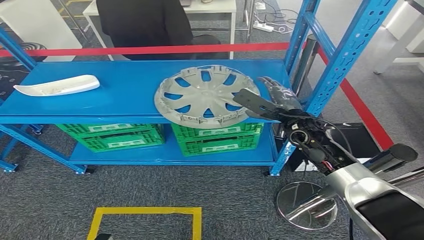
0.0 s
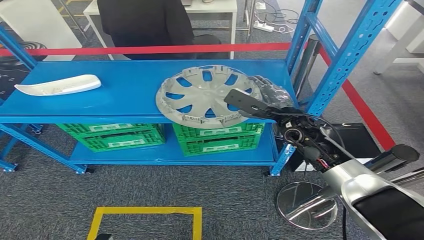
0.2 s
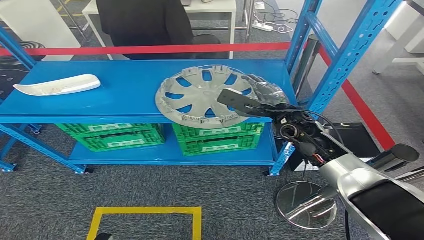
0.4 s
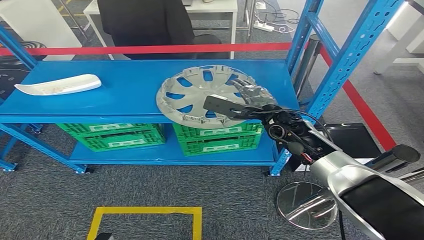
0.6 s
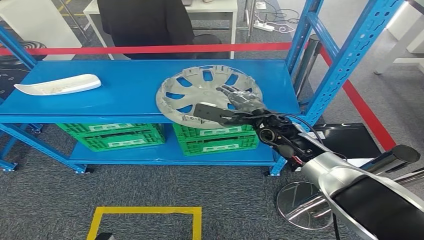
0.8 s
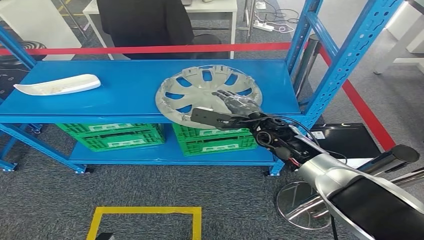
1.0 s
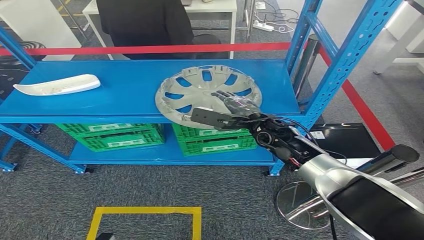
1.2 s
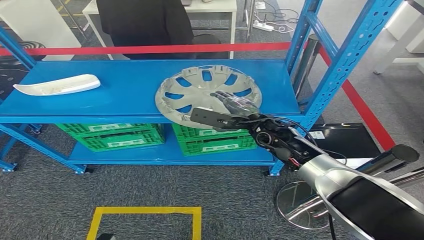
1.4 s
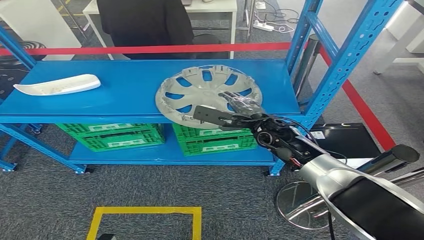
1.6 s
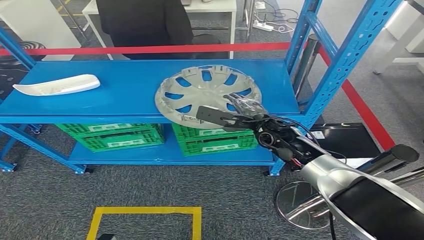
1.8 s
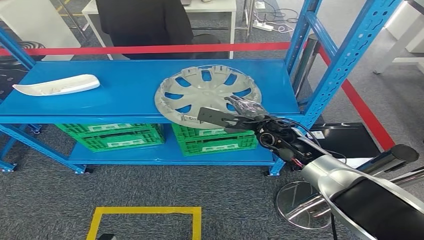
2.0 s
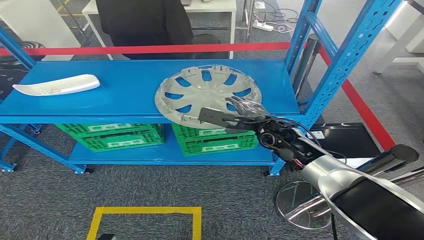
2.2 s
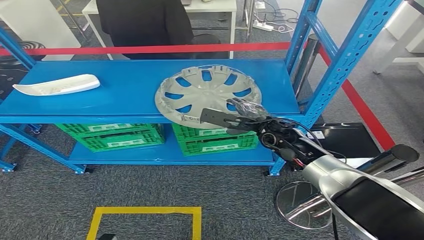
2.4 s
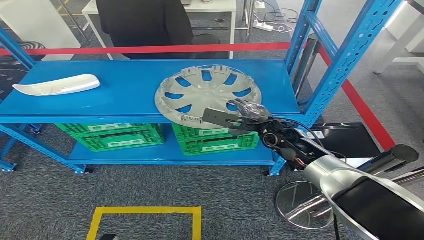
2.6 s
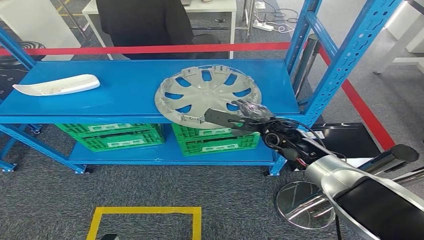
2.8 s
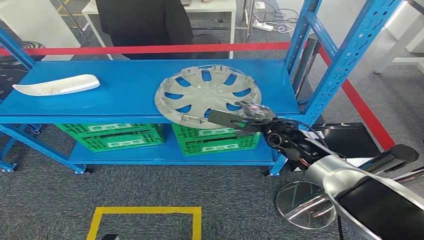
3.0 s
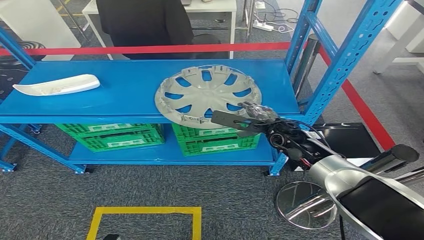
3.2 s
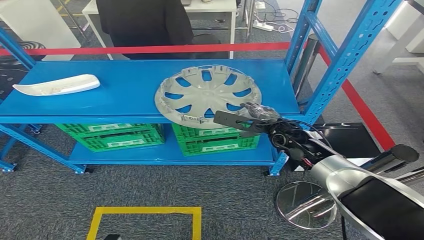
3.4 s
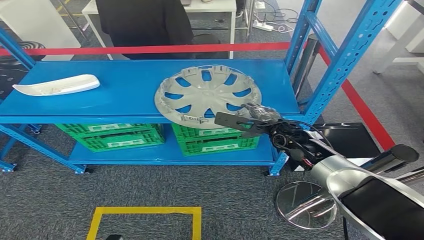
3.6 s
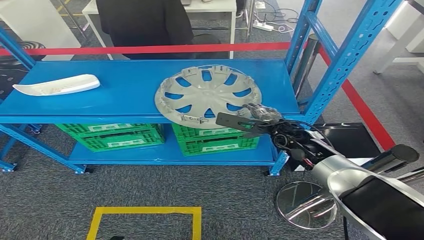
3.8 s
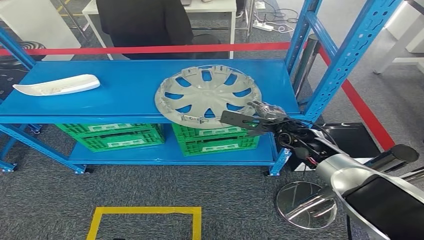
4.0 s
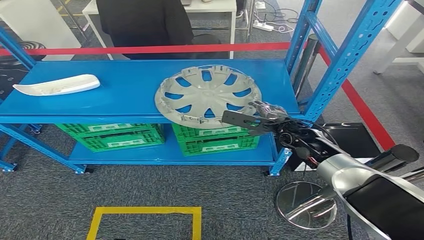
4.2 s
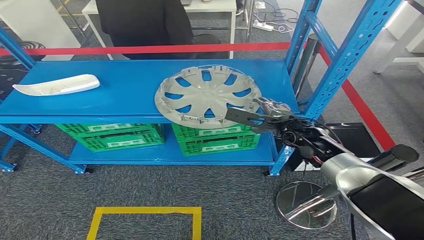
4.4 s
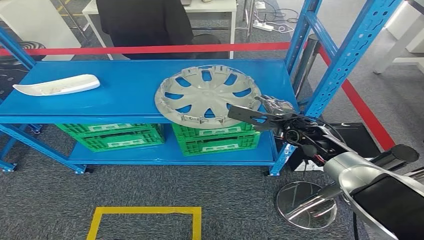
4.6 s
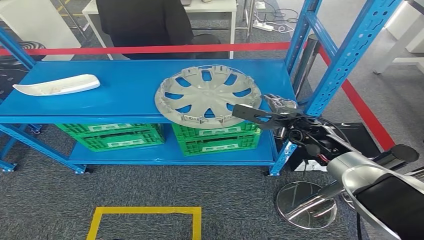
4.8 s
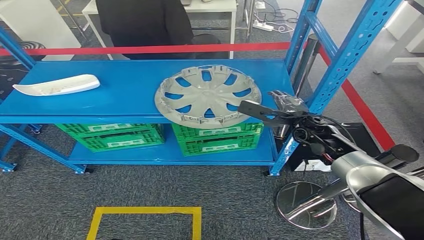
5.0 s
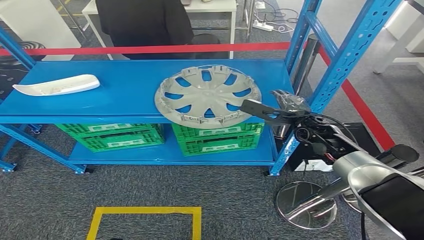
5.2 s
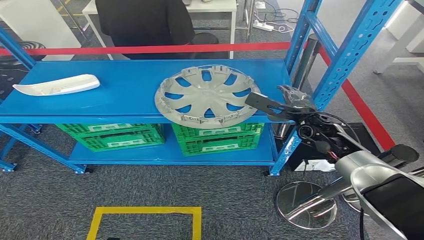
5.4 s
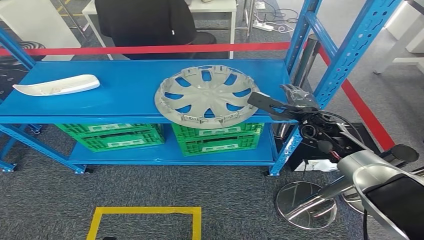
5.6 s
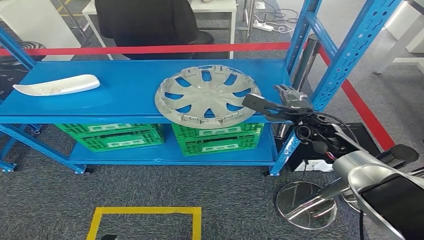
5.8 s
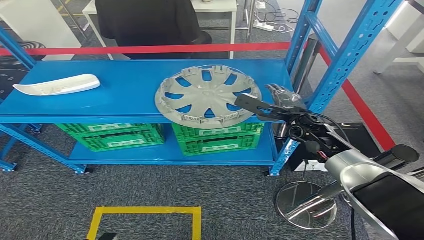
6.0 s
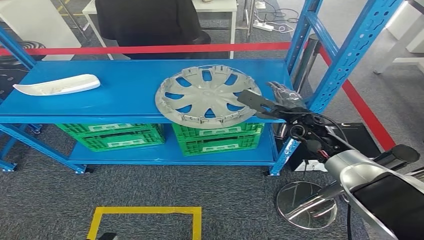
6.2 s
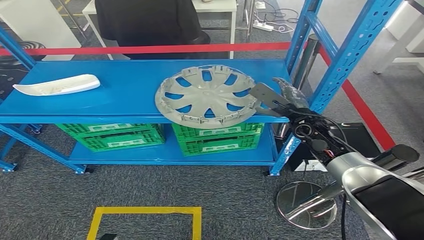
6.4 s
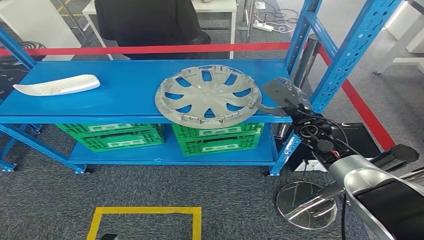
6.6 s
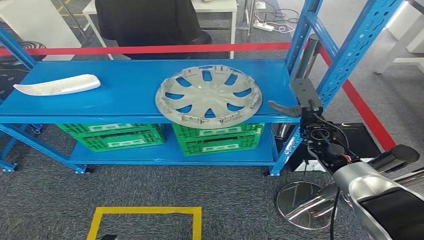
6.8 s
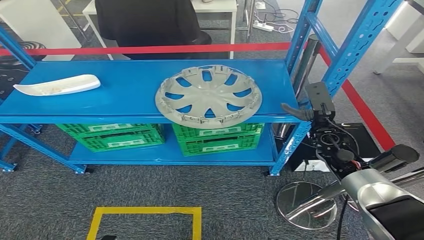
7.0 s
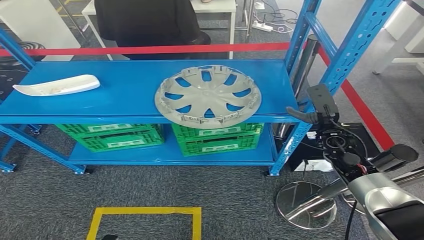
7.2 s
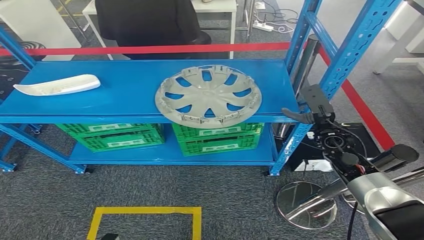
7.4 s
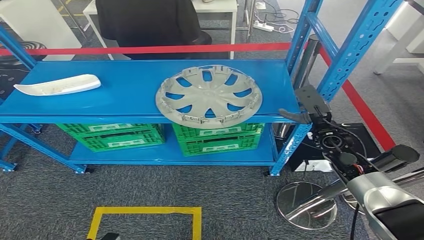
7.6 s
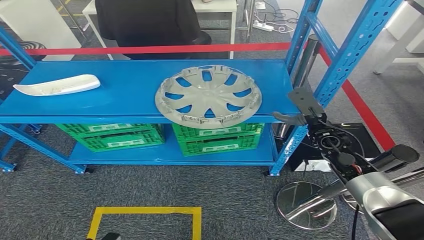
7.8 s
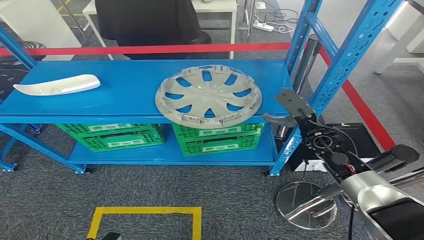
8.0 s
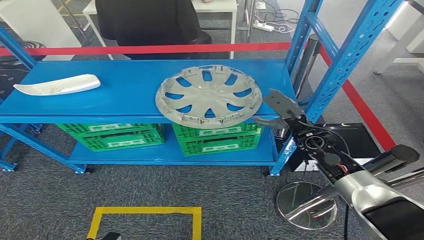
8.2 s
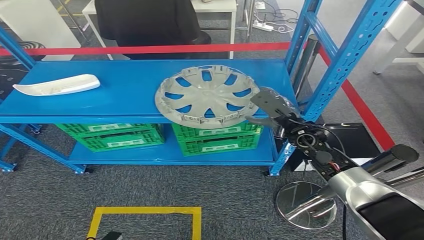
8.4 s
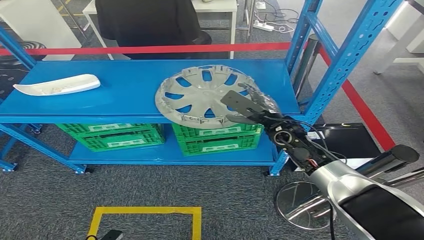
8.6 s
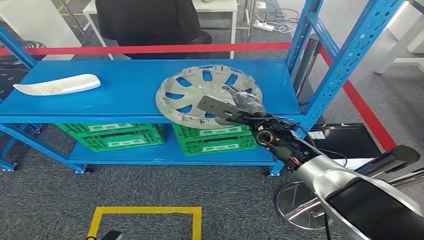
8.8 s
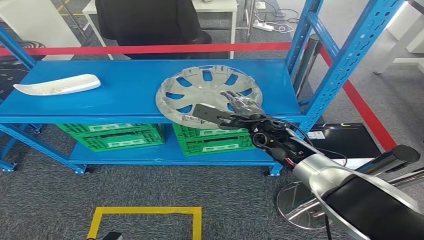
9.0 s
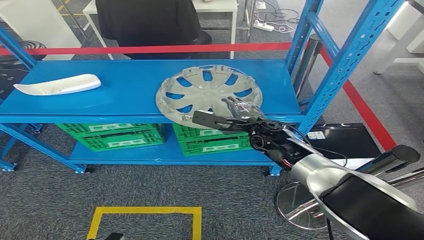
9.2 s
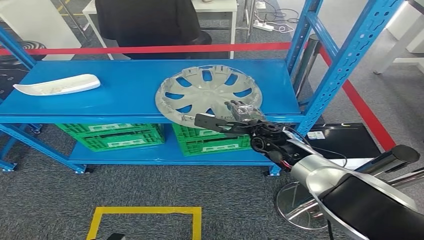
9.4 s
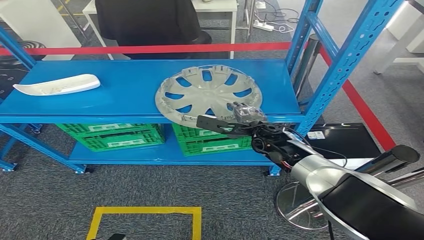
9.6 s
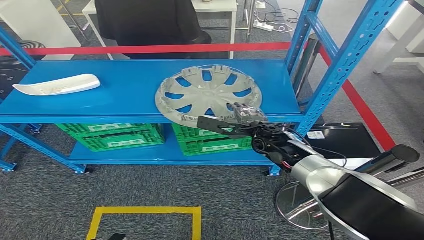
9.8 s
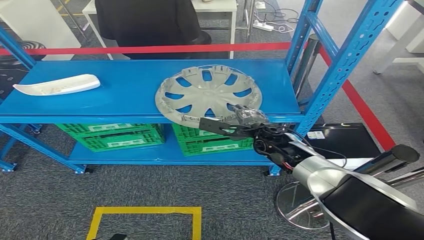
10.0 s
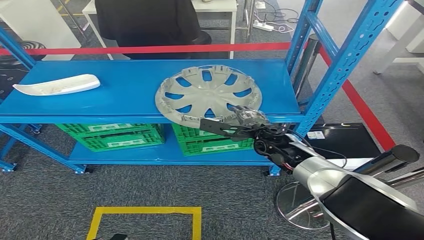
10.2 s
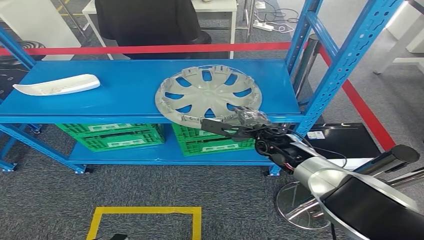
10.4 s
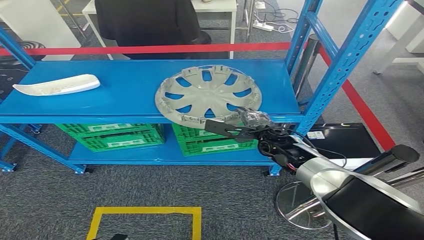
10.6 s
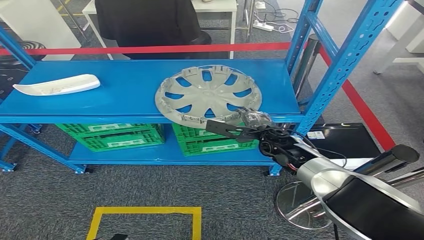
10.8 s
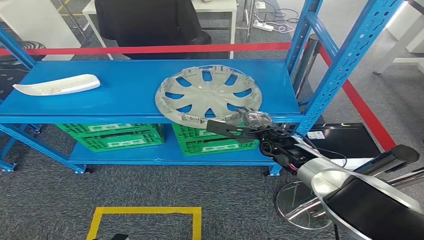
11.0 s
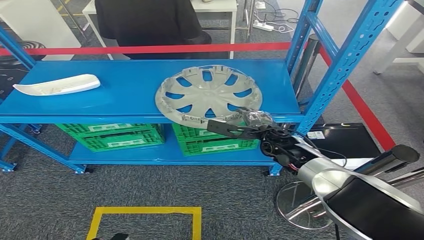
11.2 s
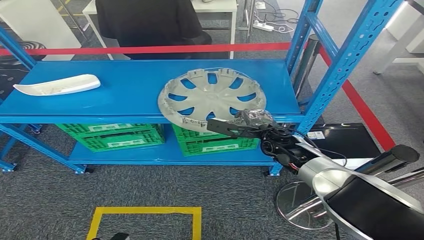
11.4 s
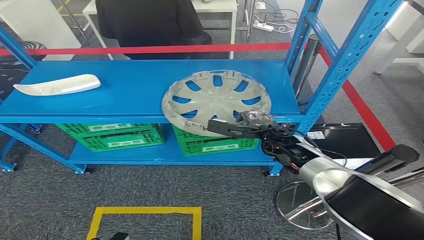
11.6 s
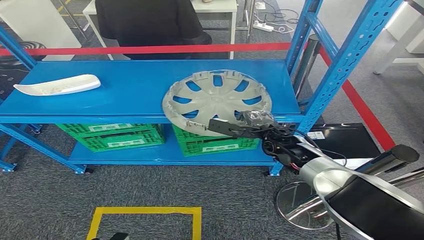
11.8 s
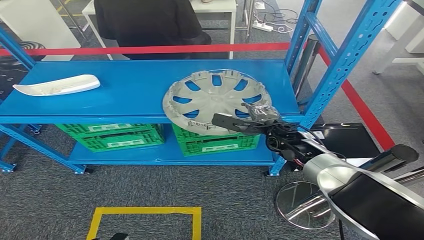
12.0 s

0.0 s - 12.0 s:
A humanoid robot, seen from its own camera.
0.0 s - 1.6 s: The right hand moves to the left, roughly 5 cm.
1.6 s - 3.0 s: There are only small adjustments of the hands.
3.0 s - 4.4 s: The hands move only a little.
4.4 s - 6.0 s: The hands move only a little.
6.0 s - 7.6 s: The right hand moves to the right, about 5 cm.
7.6 s - 9.0 s: The right hand travels to the left by some 15 cm.
9.0 s - 12.0 s: The hands stay close to where they were, moving slightly.

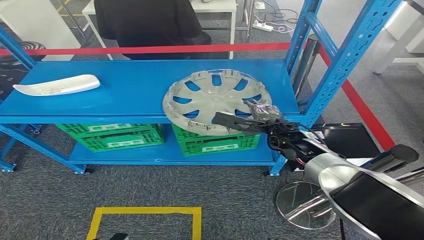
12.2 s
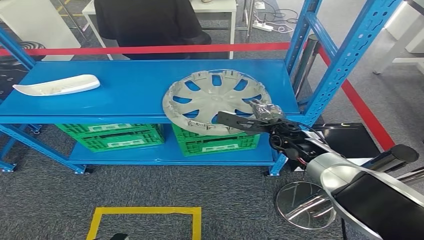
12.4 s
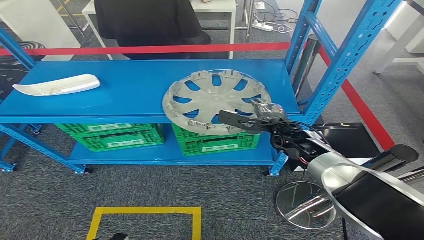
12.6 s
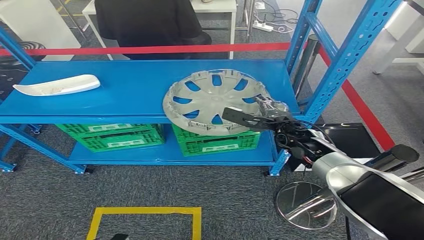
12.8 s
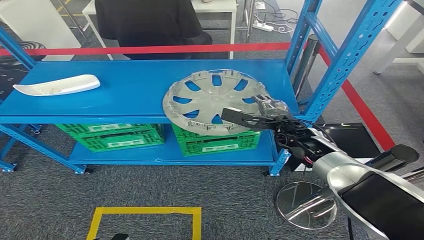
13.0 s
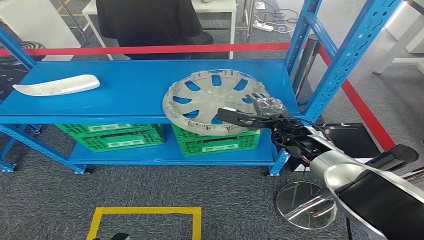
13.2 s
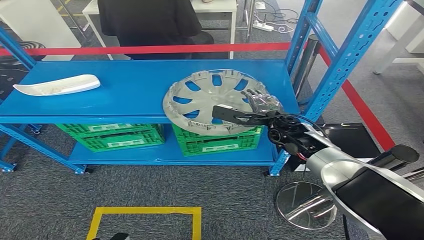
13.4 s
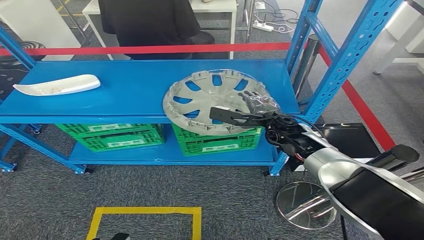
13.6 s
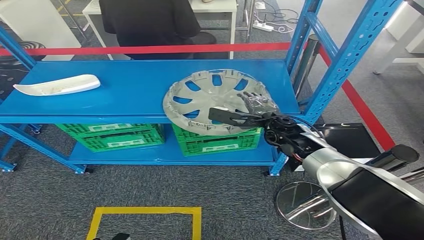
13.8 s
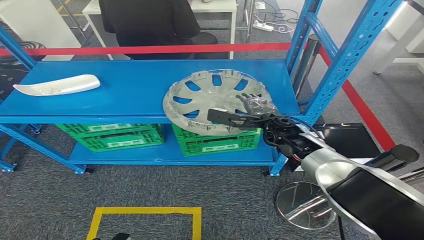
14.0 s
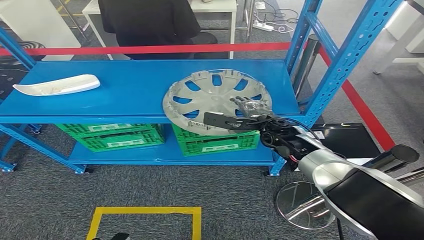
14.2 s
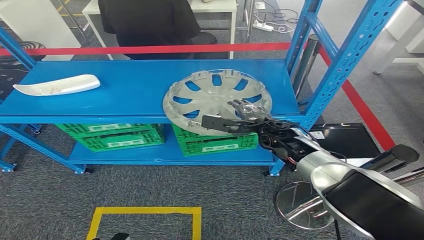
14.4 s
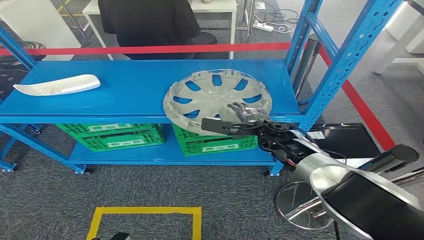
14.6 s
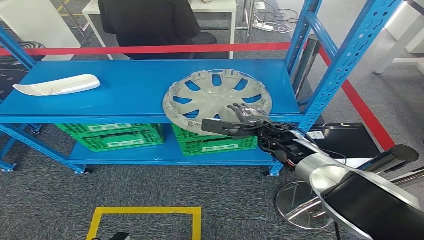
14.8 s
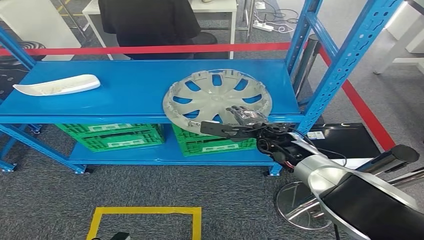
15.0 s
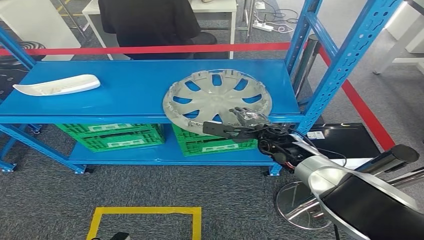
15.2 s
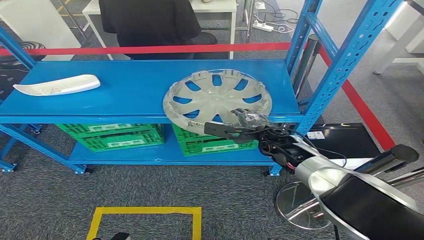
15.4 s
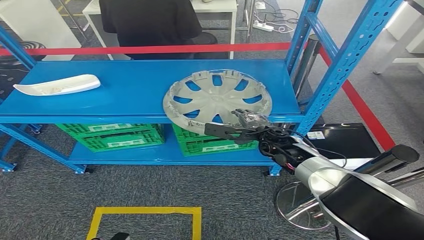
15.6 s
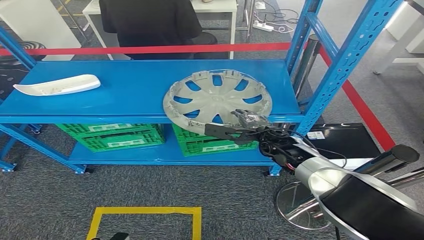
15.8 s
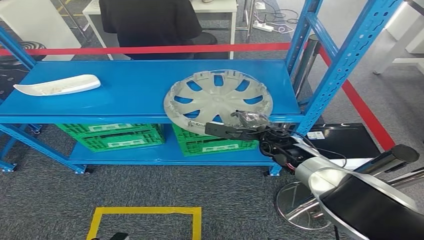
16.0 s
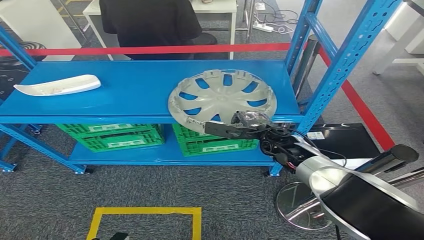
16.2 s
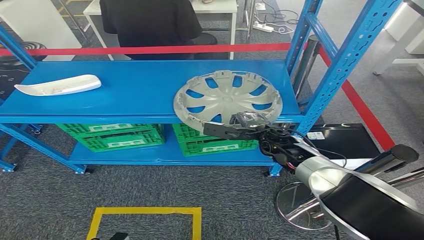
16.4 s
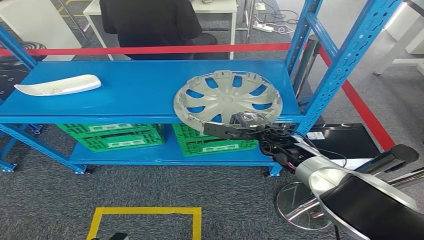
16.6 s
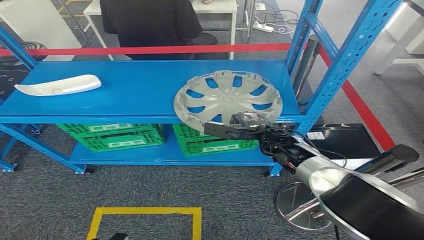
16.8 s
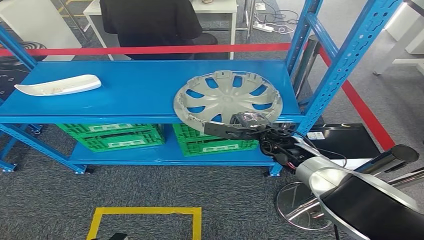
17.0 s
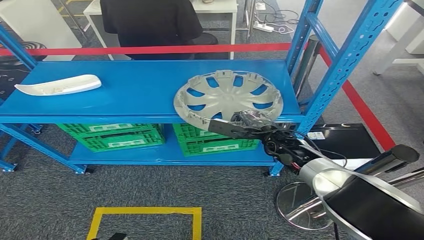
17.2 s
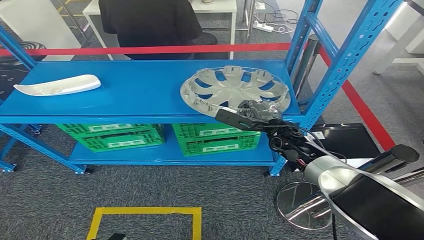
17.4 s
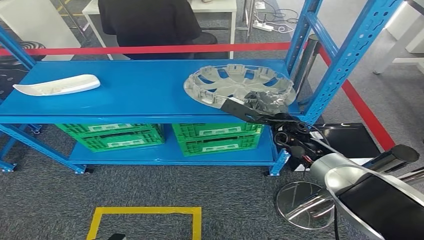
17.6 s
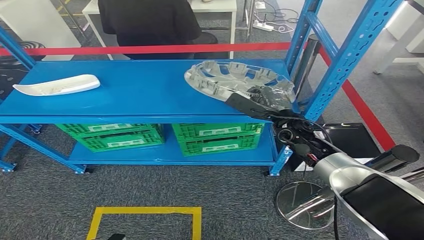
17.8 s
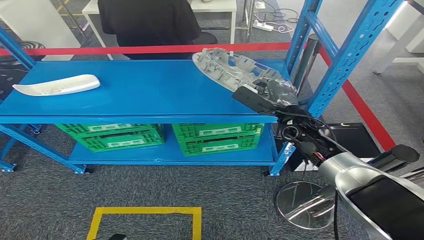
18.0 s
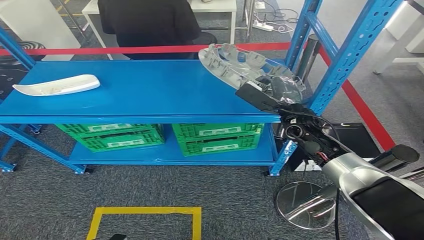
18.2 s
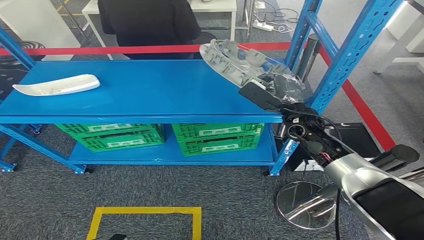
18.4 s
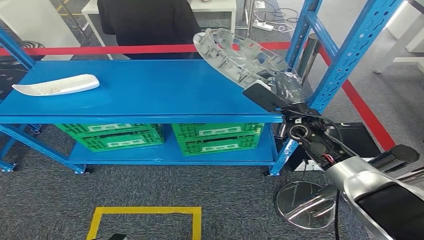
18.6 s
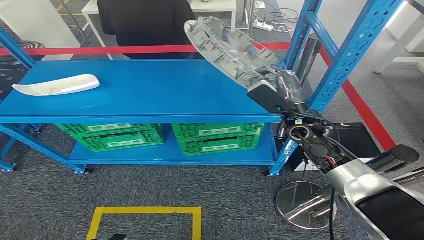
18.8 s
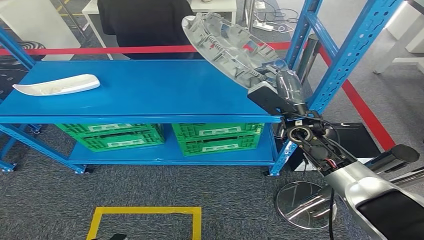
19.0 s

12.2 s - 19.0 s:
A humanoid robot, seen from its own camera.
Step, 12.2 s - 18.8 s: Pick up the small component from the shelf.
12.2 s - 16.2 s: The hands stay close to where they were, moving slightly.
17.6 s - 19.0 s: The right hand goes about 5 cm upward.
